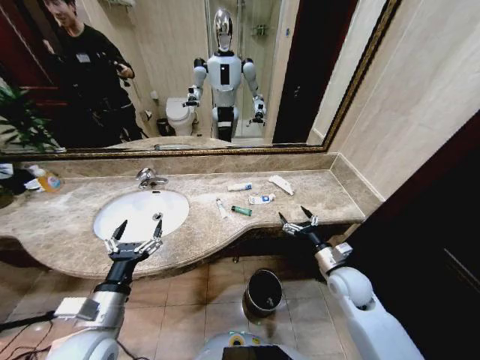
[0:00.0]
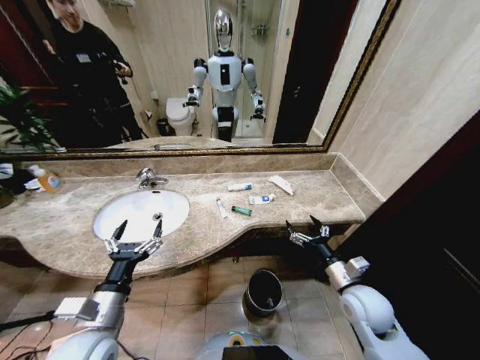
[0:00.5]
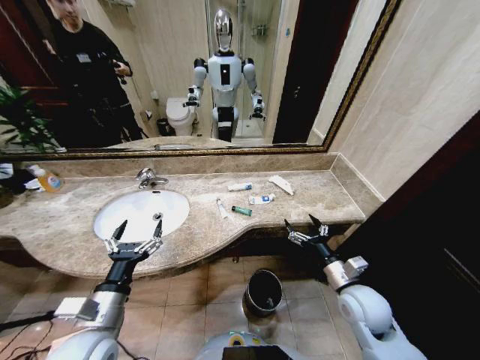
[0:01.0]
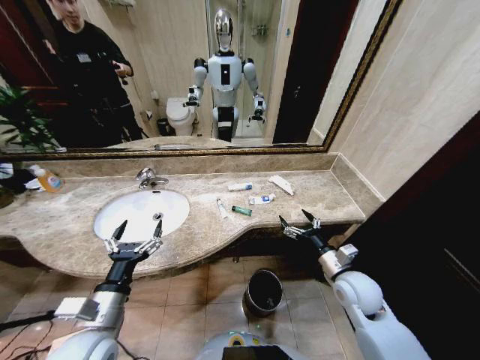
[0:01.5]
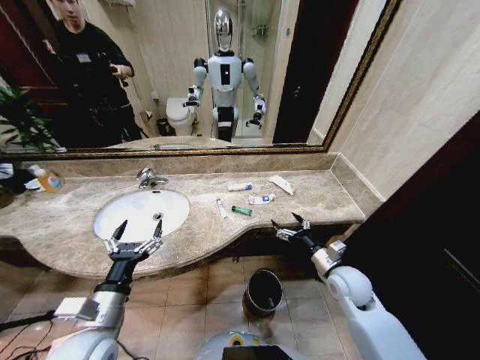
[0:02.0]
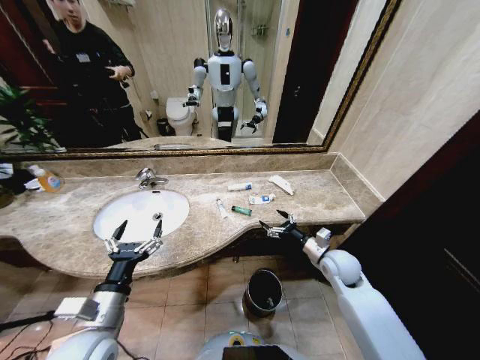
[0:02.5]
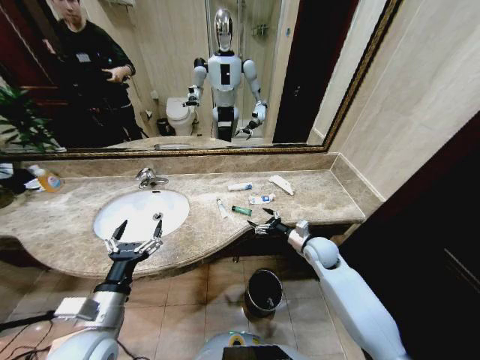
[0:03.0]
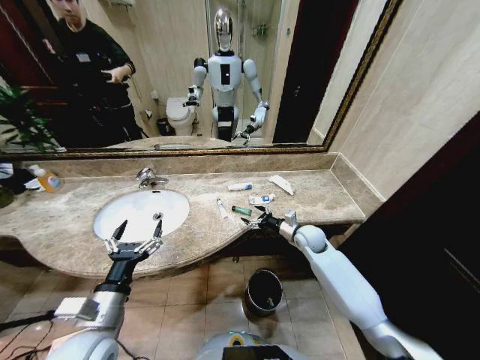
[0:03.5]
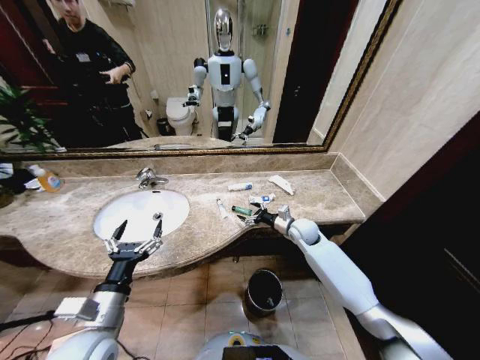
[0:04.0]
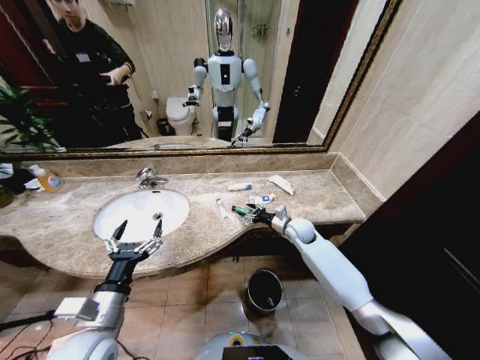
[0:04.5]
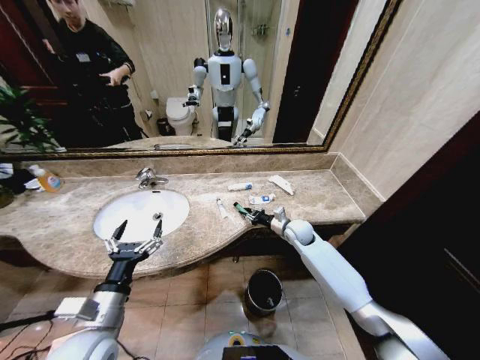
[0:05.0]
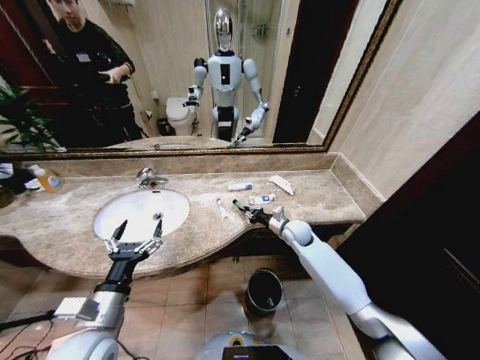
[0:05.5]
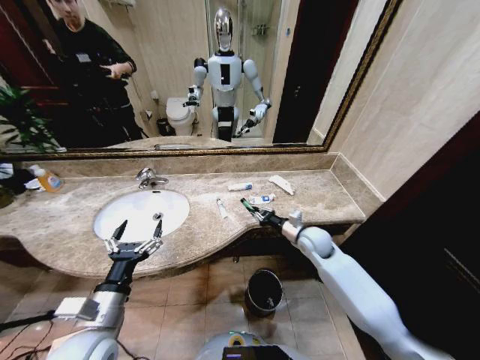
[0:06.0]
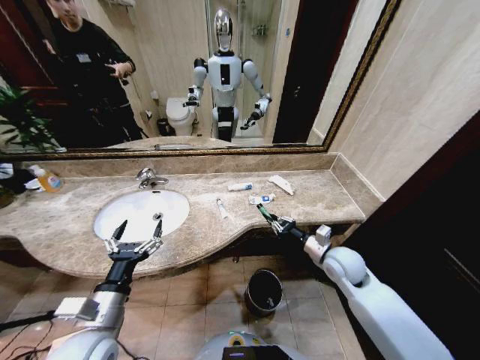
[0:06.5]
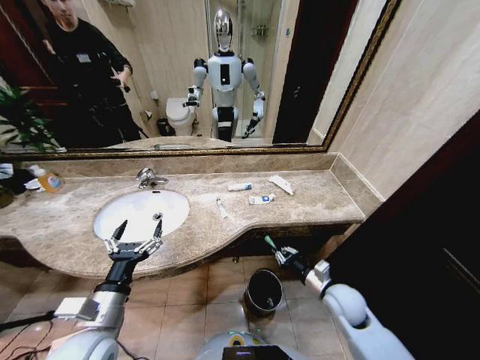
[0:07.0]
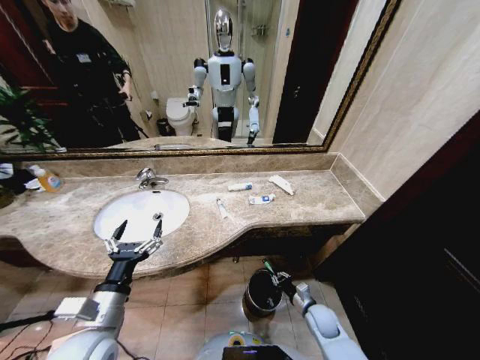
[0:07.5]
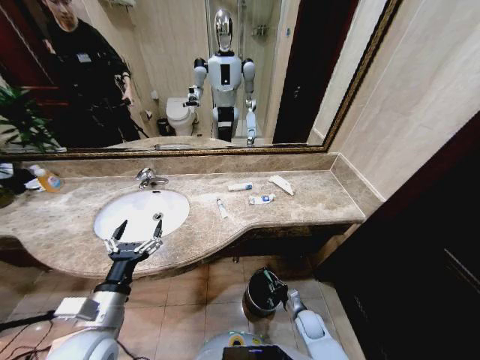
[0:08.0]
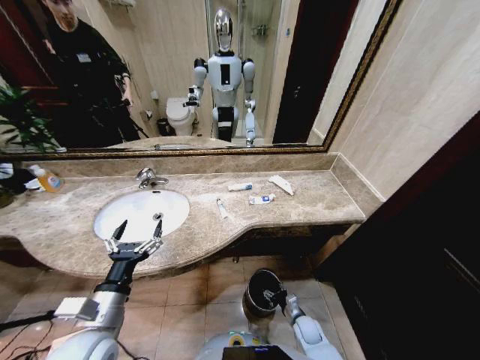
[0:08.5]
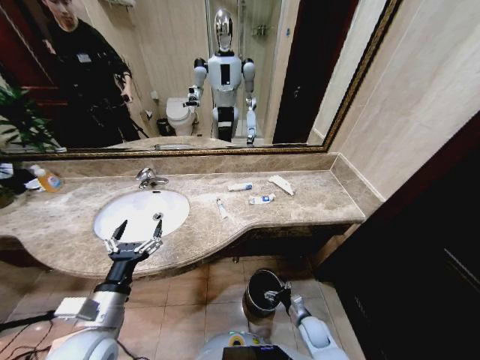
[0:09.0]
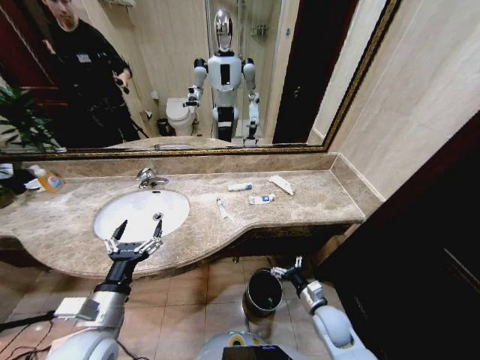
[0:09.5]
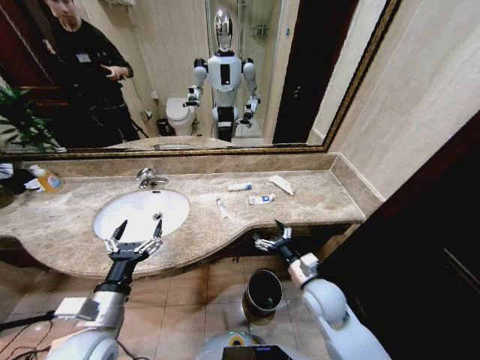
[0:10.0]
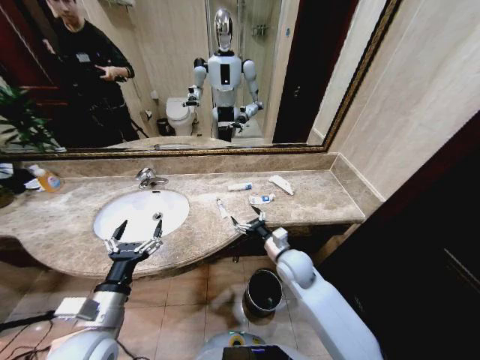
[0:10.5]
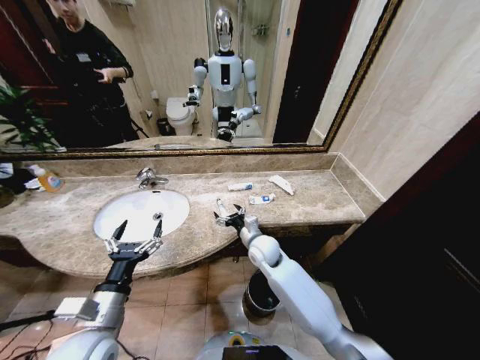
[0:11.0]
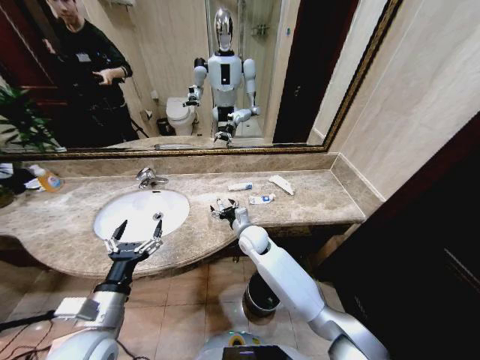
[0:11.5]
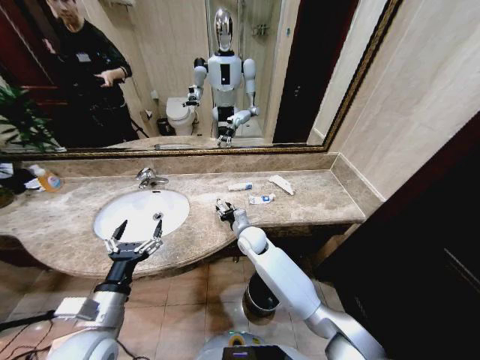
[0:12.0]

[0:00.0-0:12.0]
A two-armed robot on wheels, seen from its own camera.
Task of the whole recording: Pick up the trash from the sink and place it in the trash bin.
0:02.0 to 0:04.0: The right gripper goes about 20 cm forward.
0:04.0 to 0:06.0: The right gripper is displaced backward by about 5 cm, and closes its fingers.
0:06.0 to 0:08.0: The right gripper is displaced downward and backward by roughly 35 cm.
0:08.0 to 0:10.0: The right gripper moves upward, approximately 25 cm, and opens up.
0:10.0 to 0:12.0: The right gripper shifts roughly 25 cm forward and to the left, and closes.

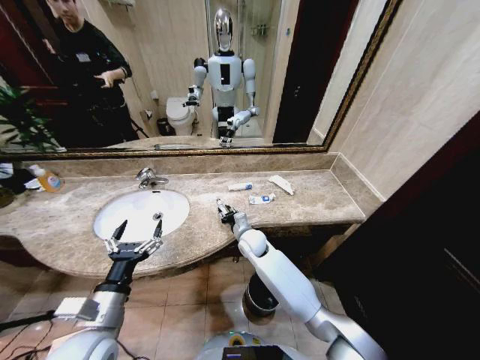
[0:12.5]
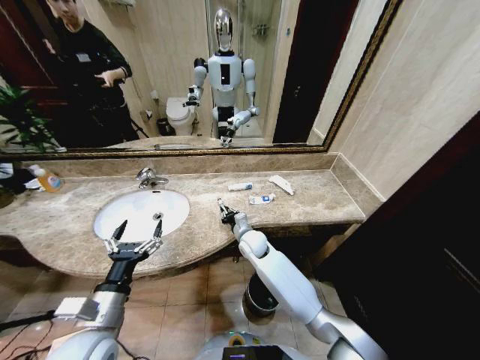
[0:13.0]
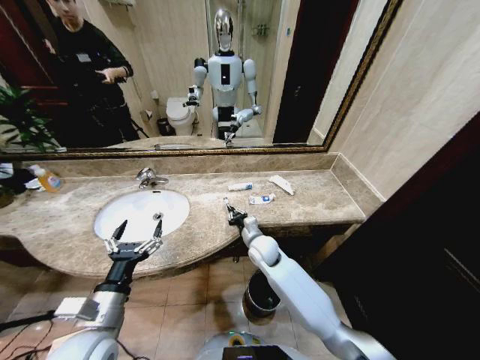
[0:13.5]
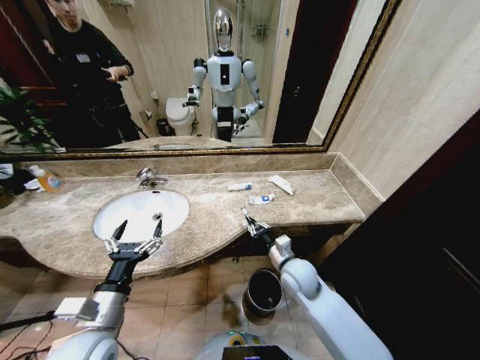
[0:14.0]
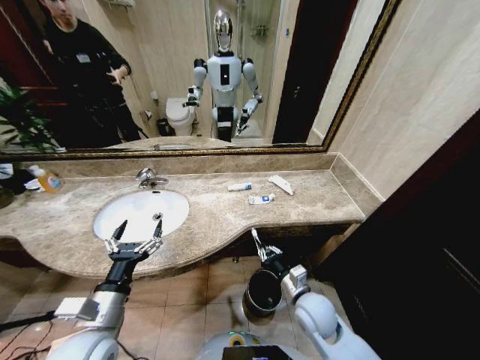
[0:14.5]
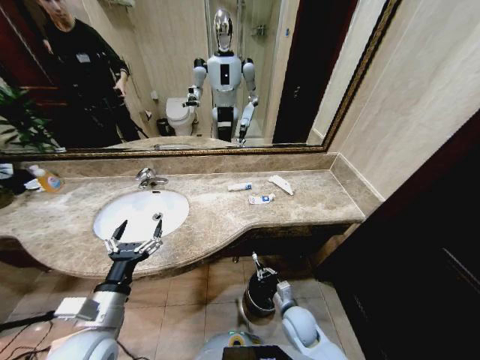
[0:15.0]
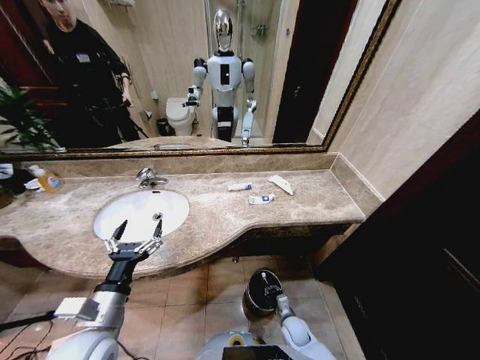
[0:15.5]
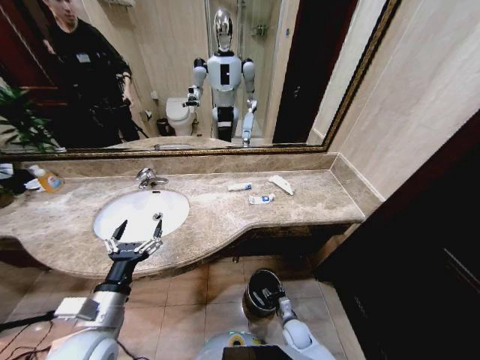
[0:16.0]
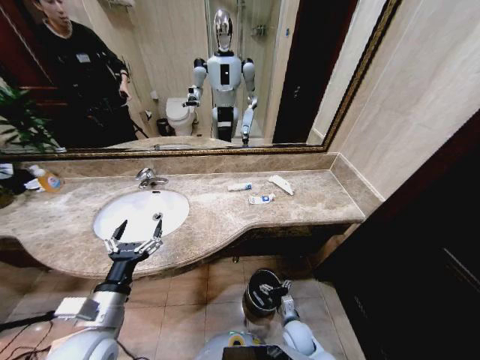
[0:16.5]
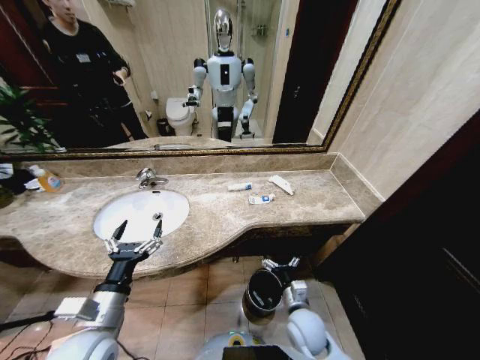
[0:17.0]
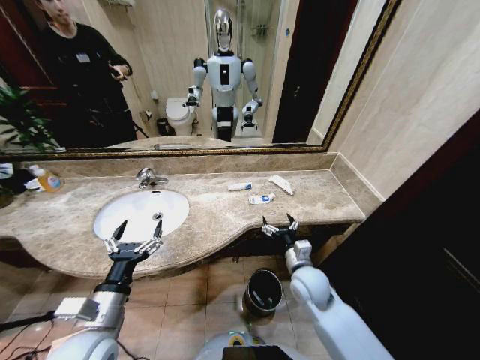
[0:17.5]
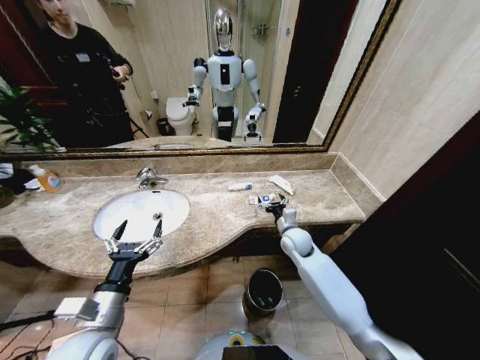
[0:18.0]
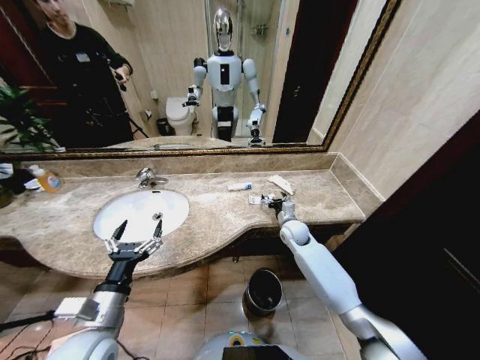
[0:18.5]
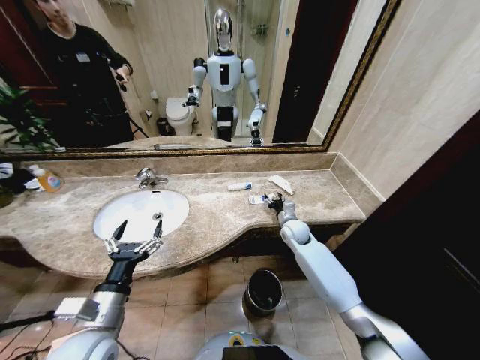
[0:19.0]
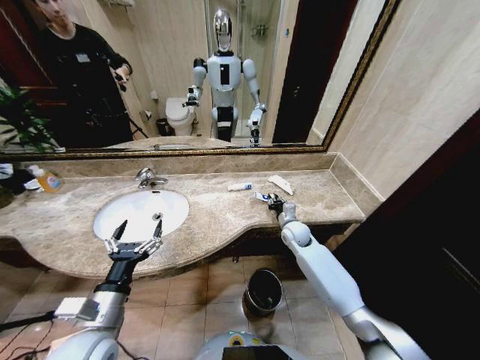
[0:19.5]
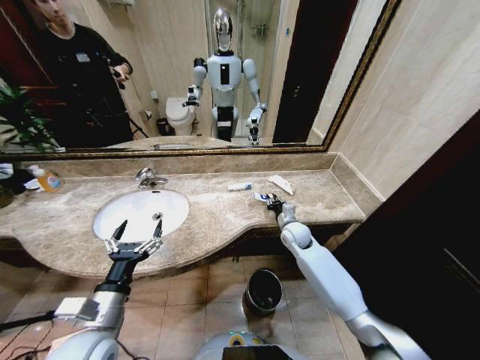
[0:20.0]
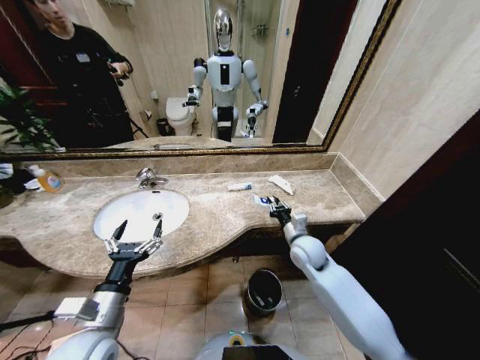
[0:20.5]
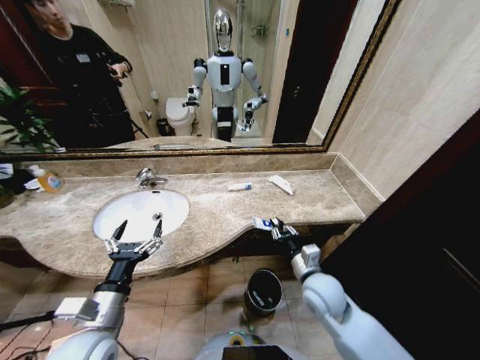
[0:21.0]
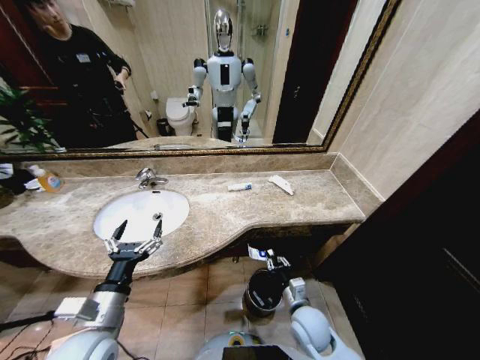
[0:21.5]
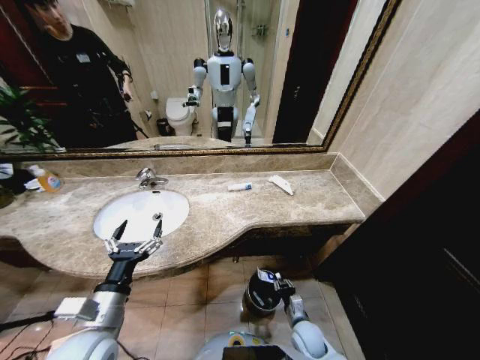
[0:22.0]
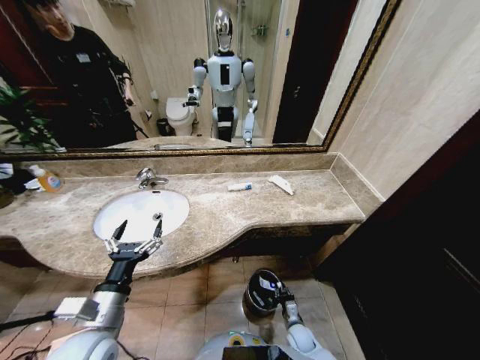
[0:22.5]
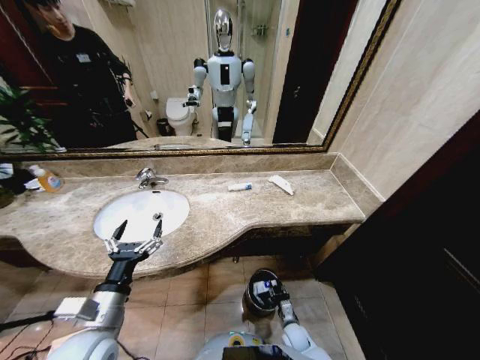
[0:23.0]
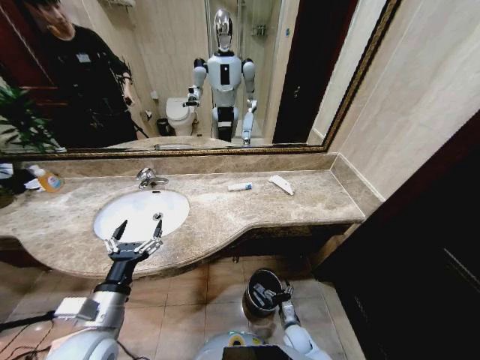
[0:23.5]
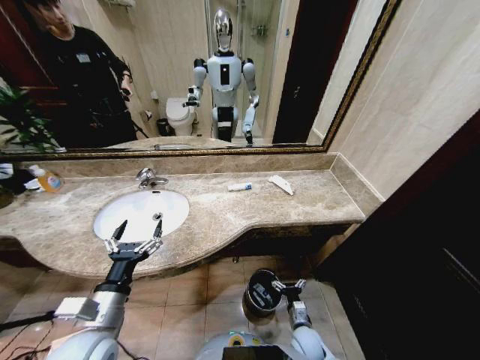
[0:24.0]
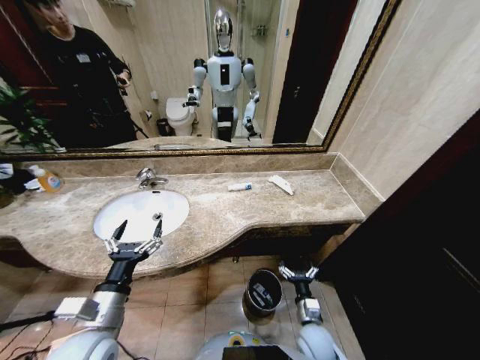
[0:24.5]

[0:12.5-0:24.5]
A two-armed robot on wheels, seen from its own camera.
Task of the whole recording: Pick up the trash from the sink and place it in the trash bin.
0:12.5 to 0:14.5: The right gripper travels backward and to the right by some 25 cm, and closes its fingers.
0:14.5 to 0:16.5: The right gripper travels downward by roughly 20 cm, and opens up.
0:16.5 to 0:18.5: The right gripper travels forward and upward by some 35 cm.
0:18.5 to 0:20.5: The right gripper travels backward by approximately 10 cm, and closes.
0:20.5 to 0:22.5: The right gripper is displaced downward and backward by roughly 35 cm.
0:22.5 to 0:24.5: The right gripper goes about 15 cm upward, and opens its fingers.

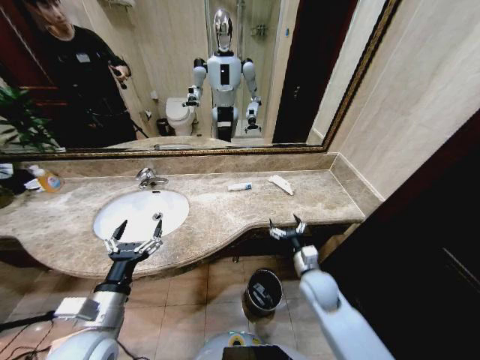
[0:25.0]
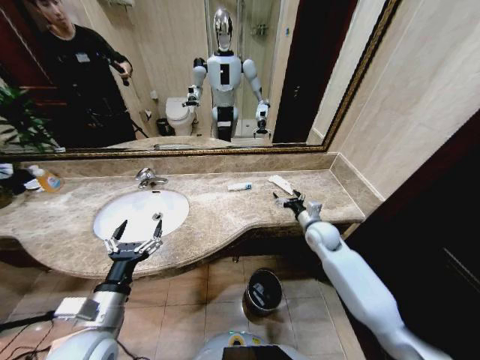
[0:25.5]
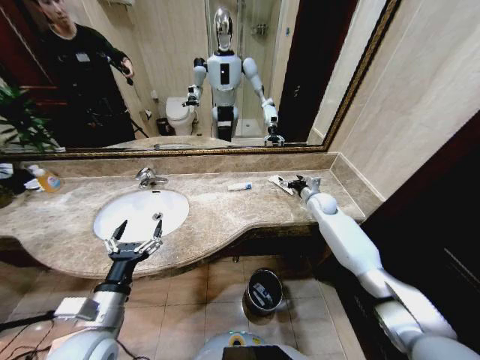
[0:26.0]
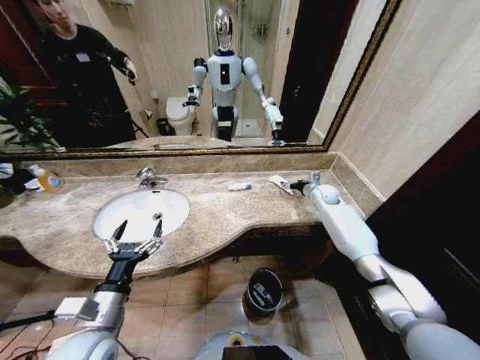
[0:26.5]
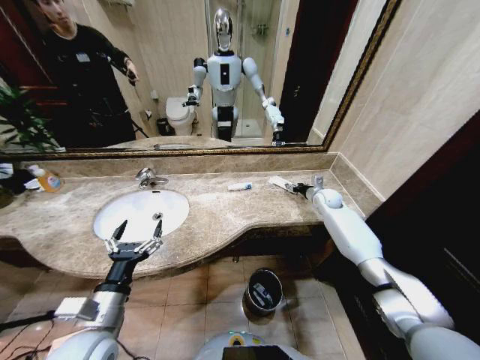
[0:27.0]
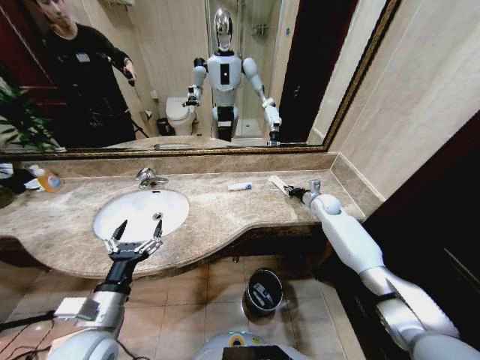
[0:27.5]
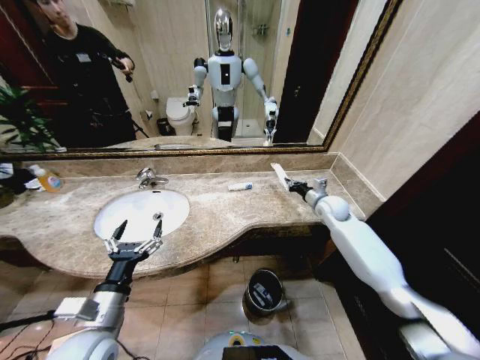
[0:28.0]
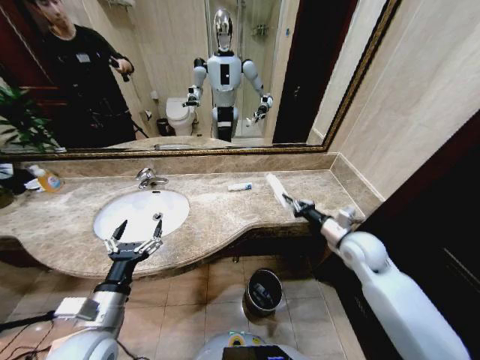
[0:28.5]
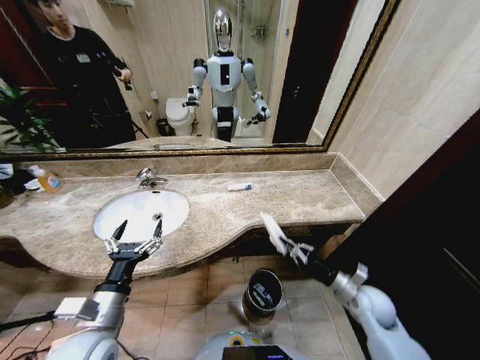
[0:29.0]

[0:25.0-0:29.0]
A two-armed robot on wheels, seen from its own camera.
Task of the whole recording: Pick up the trash from the sink and place it in the trash bin.
0:25.0 to 0:27.0: The right gripper shifts some 35 cm forward and to the right.
0:27.0 to 0:29.0: The right gripper heads backward, covering about 35 cm, and closes up.
